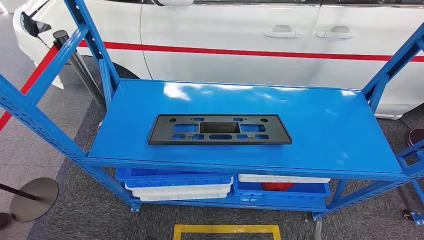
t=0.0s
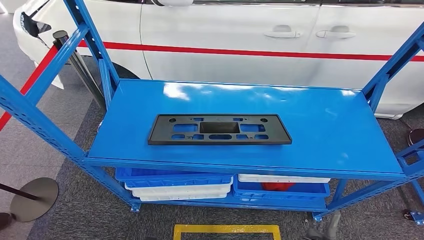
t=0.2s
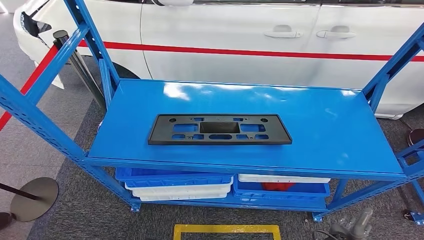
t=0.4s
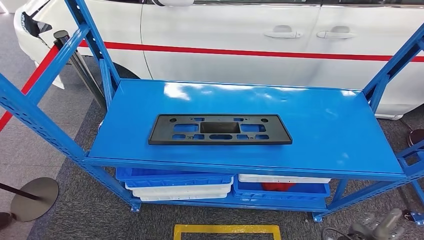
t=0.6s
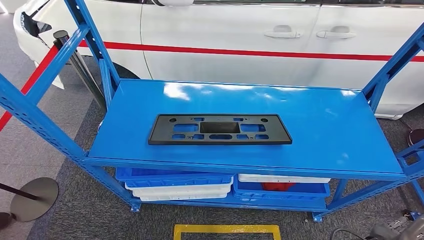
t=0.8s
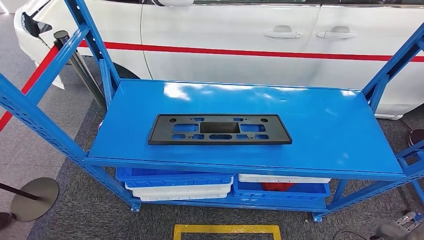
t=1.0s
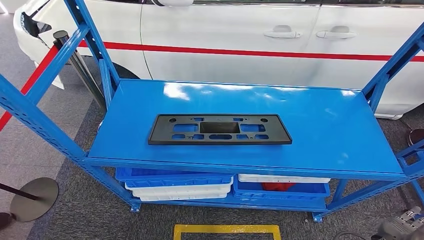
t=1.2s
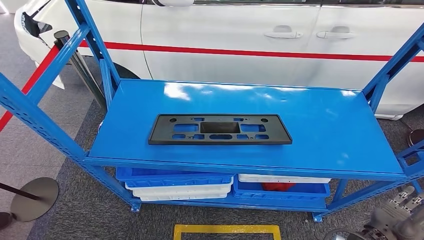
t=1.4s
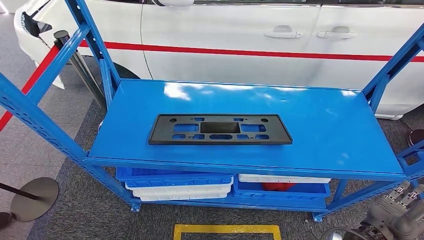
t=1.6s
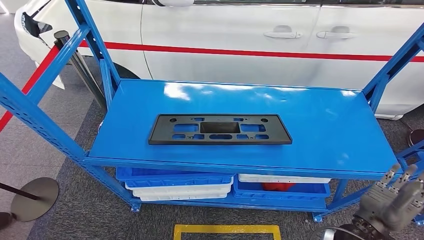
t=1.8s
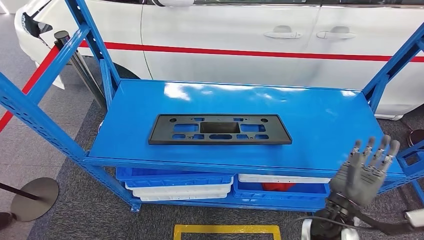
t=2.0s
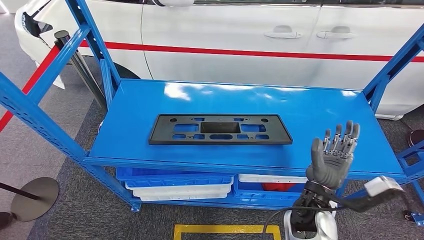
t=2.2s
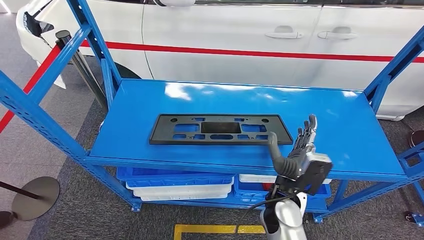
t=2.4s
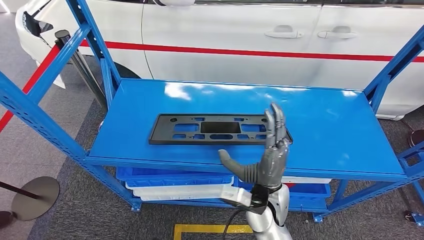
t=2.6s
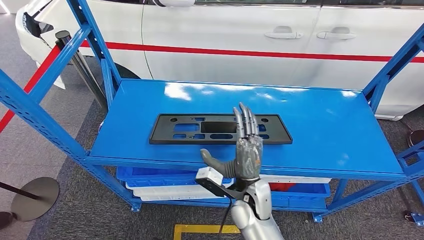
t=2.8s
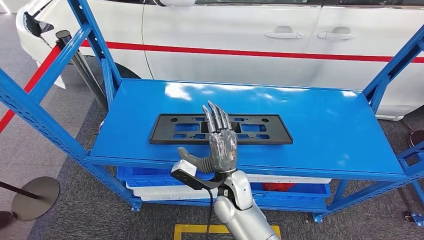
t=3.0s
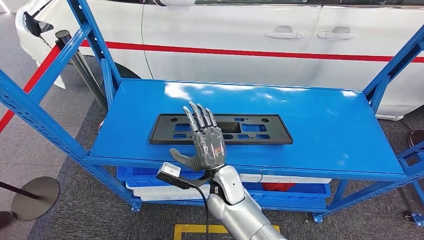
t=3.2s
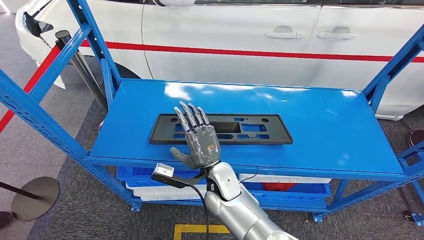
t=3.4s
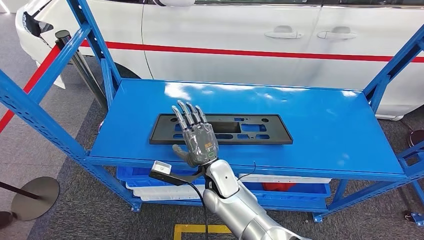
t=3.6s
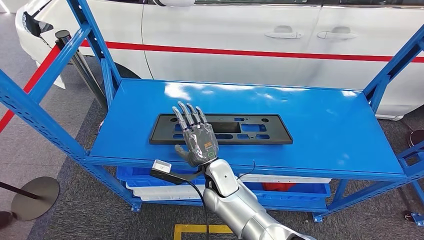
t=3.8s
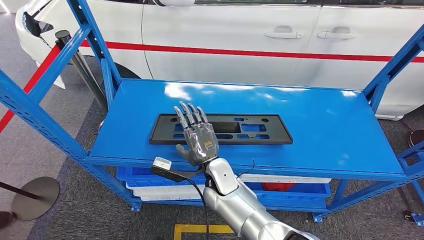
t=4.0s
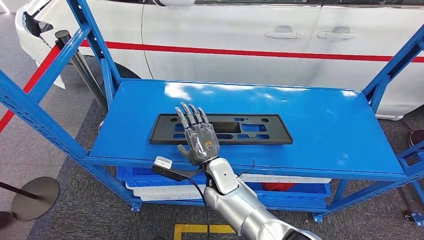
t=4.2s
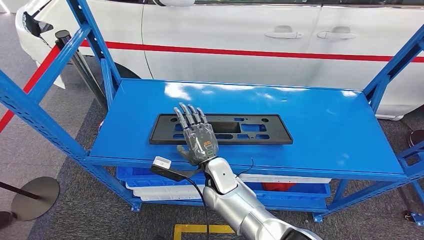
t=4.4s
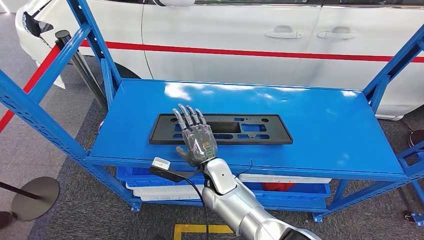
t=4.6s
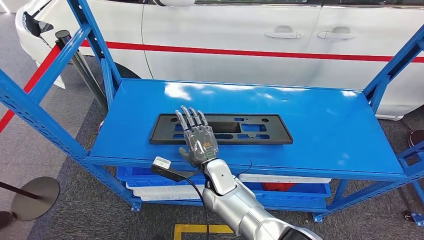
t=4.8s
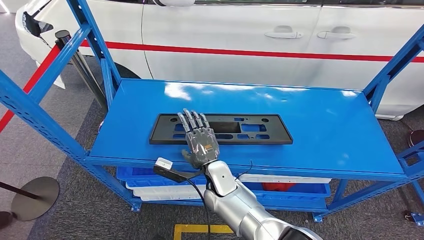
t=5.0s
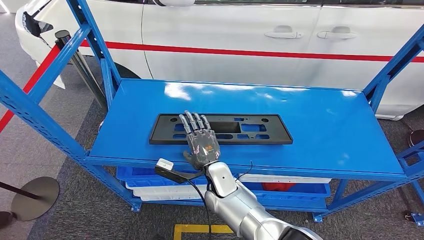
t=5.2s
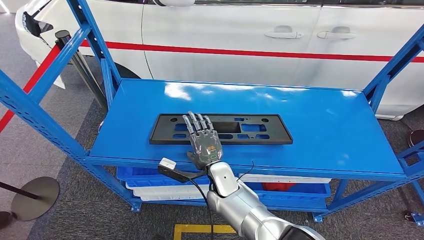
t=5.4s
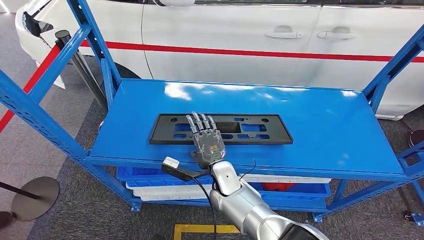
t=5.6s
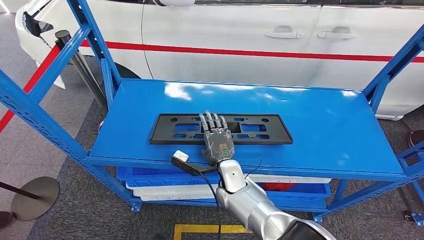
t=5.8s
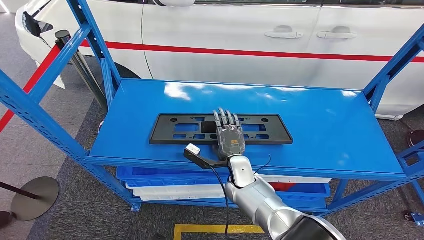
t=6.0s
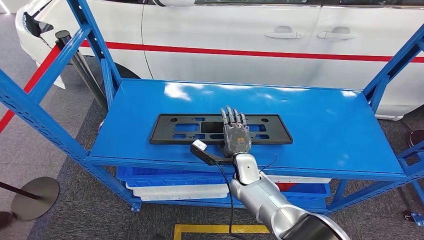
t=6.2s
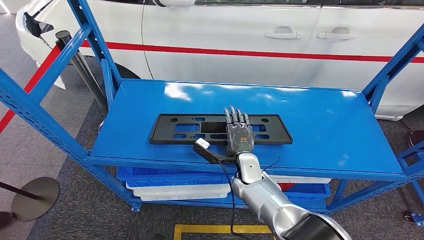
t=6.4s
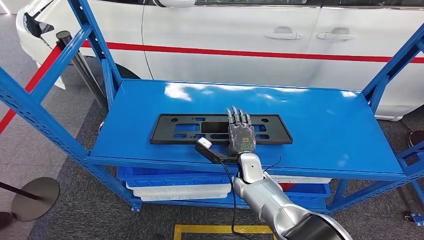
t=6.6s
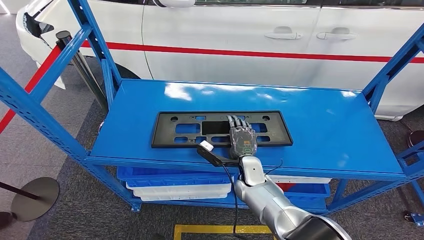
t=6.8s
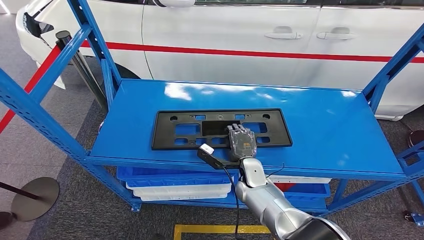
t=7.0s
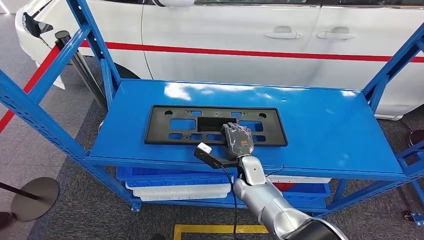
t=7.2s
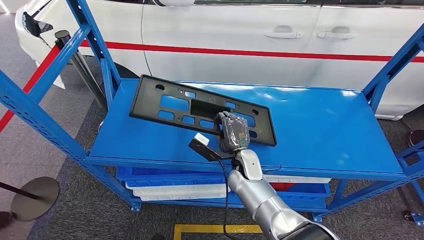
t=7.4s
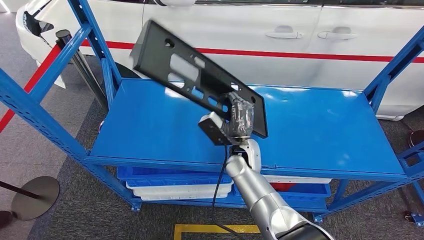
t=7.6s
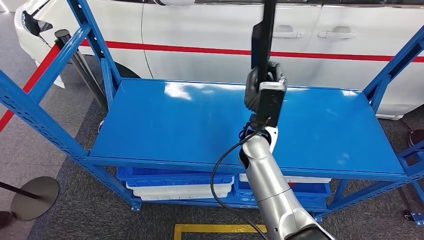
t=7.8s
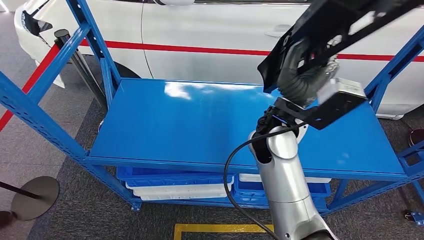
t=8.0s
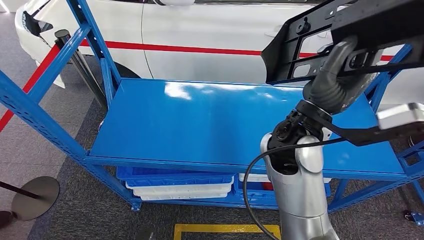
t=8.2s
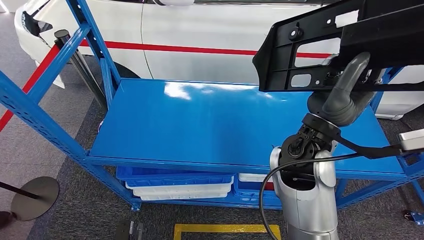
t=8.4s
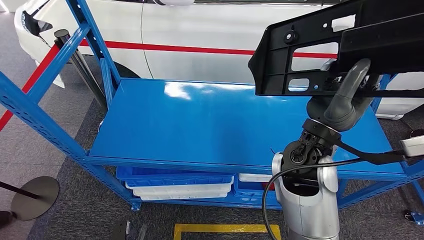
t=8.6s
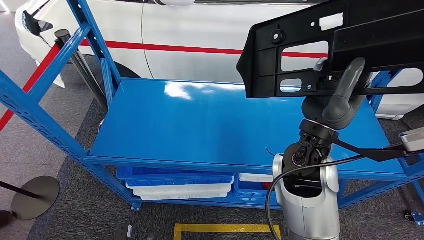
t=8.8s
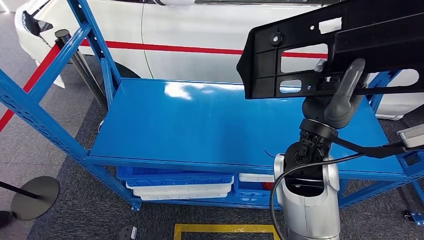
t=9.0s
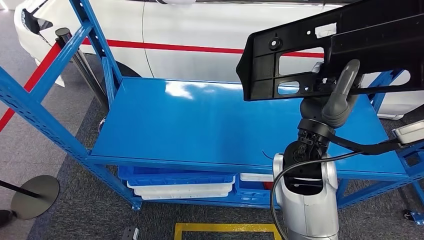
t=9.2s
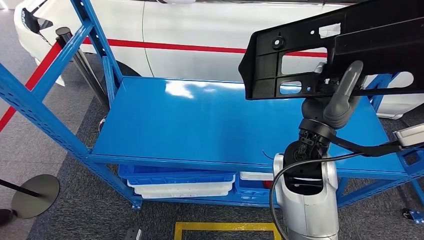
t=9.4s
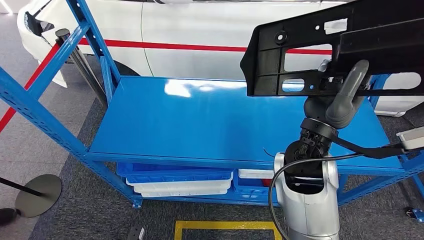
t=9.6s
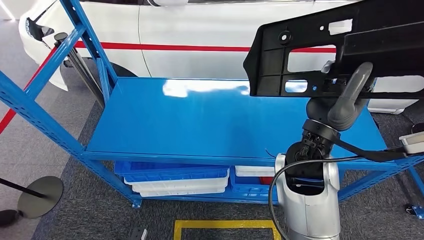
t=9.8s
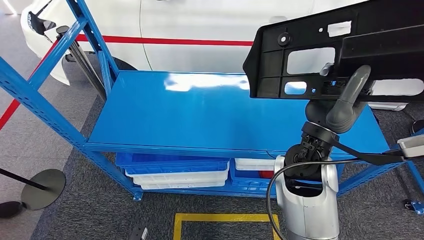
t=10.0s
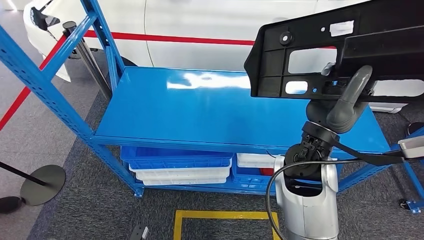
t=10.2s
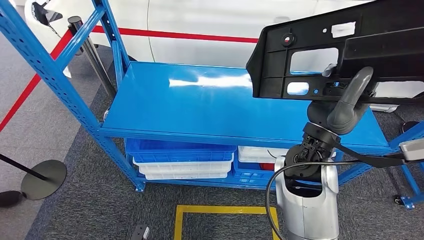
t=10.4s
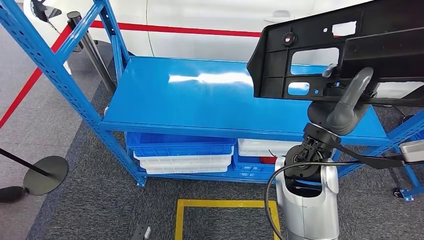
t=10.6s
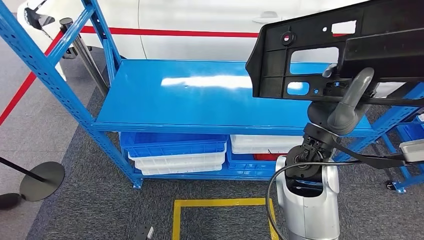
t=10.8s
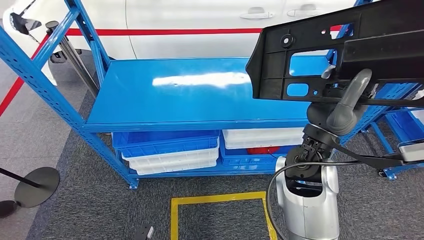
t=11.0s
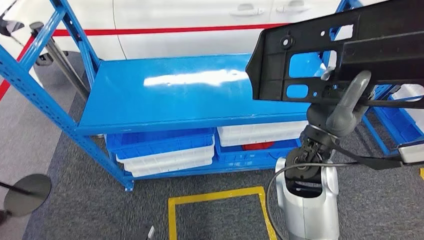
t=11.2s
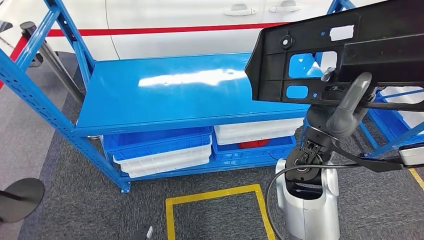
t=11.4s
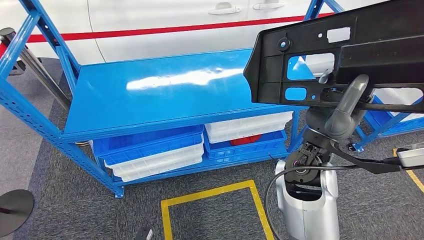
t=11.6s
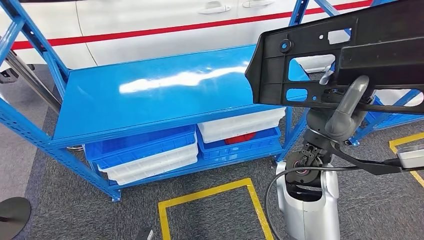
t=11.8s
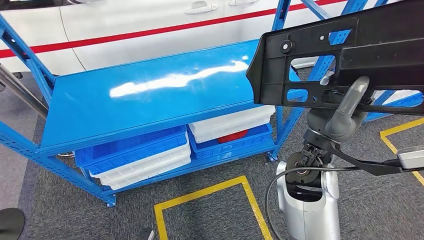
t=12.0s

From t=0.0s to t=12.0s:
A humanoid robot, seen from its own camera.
Step, from t=0.0s to t=7.6s: Pick up the large material from the shelf.
From t=1.6s to t=3.0s: The right hand goes roughly 25 cm to the left and forward.
From t=4.4s to t=6.0s: The right hand goes some 5 cm to the right.
From t=6.0s to t=7.6s: The right hand moves upward, about 5 cm.

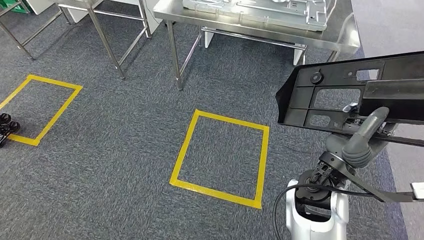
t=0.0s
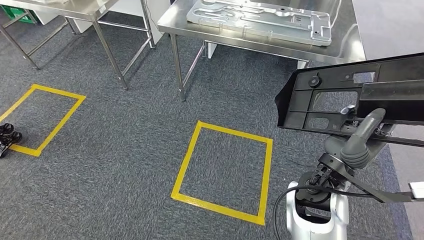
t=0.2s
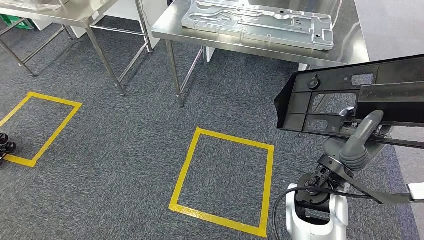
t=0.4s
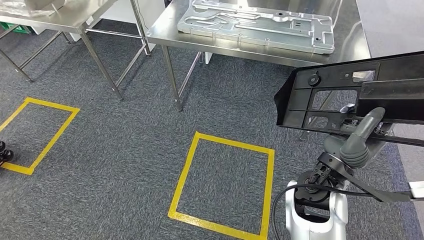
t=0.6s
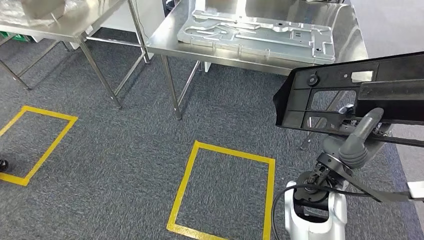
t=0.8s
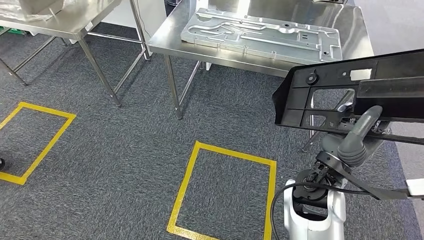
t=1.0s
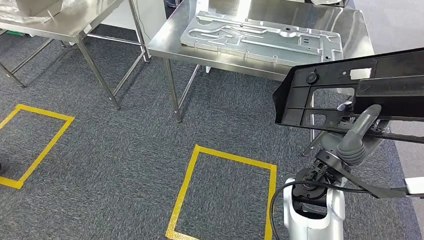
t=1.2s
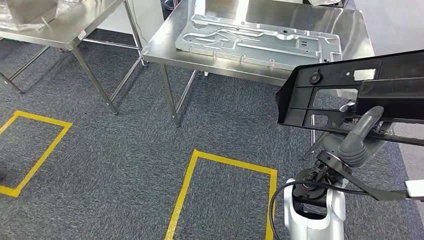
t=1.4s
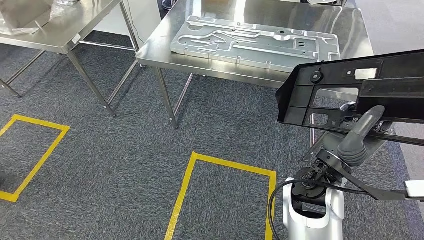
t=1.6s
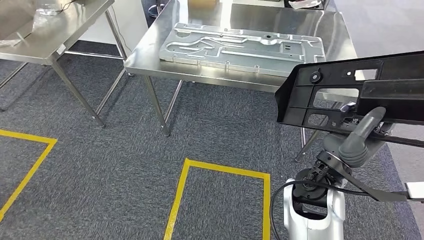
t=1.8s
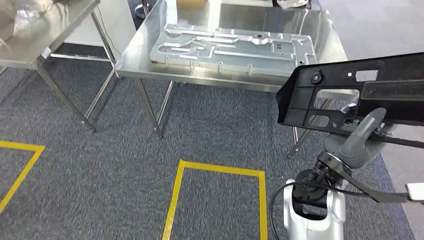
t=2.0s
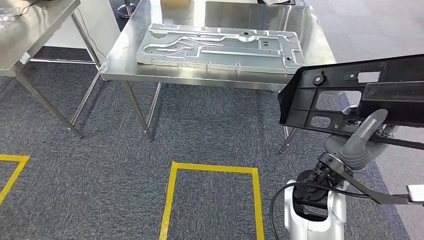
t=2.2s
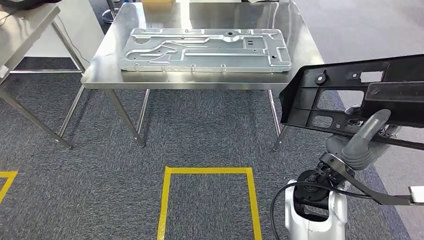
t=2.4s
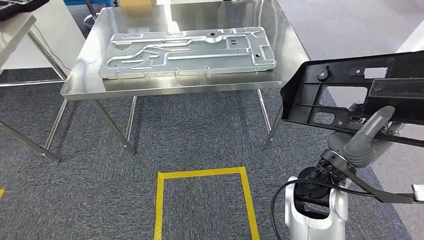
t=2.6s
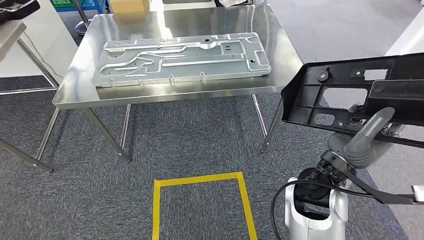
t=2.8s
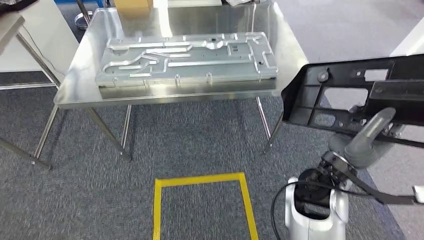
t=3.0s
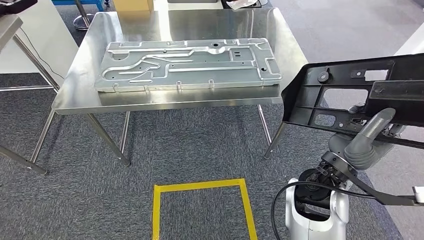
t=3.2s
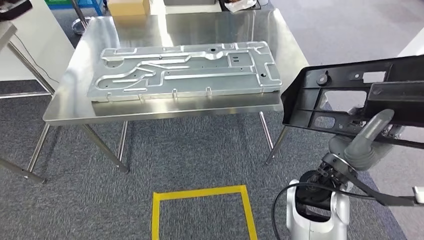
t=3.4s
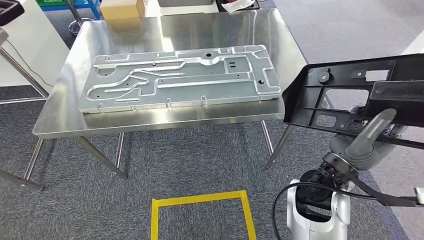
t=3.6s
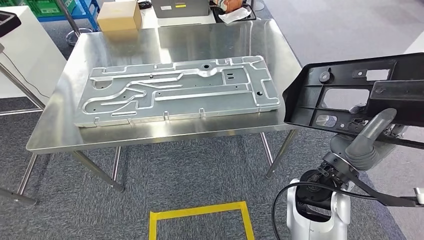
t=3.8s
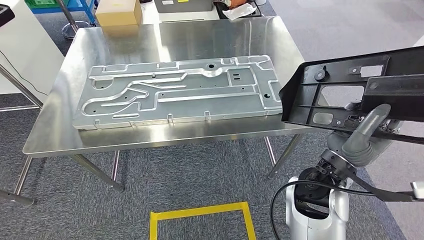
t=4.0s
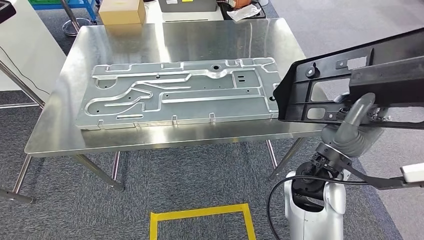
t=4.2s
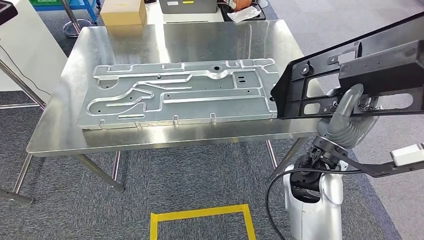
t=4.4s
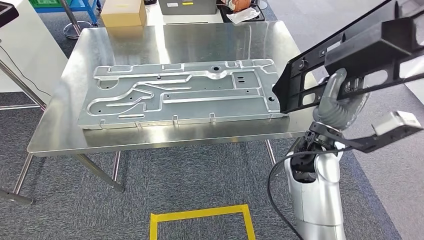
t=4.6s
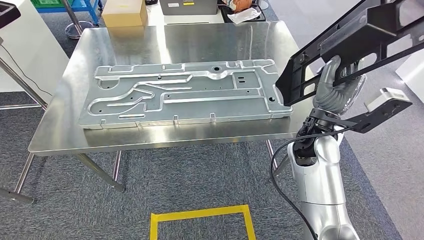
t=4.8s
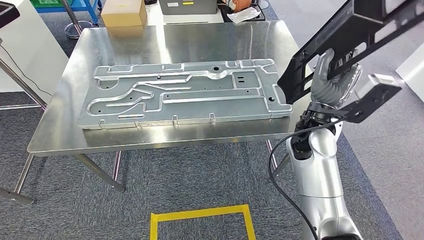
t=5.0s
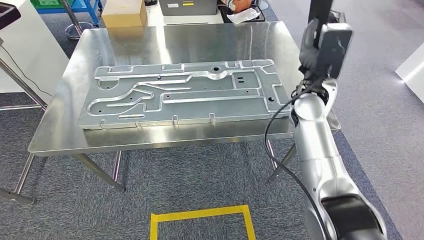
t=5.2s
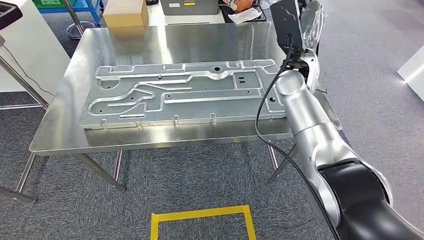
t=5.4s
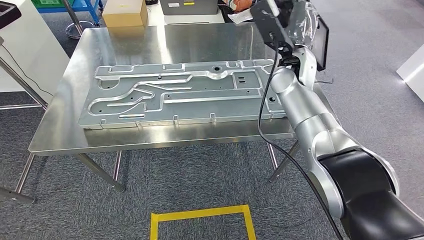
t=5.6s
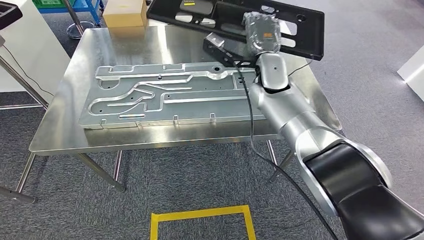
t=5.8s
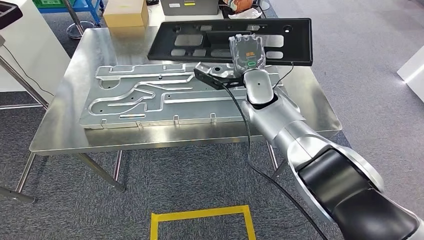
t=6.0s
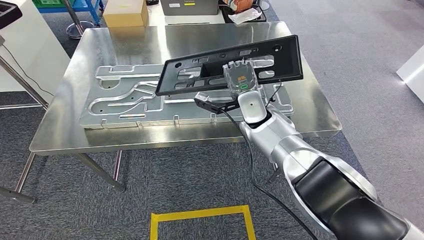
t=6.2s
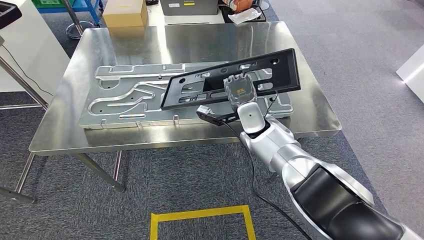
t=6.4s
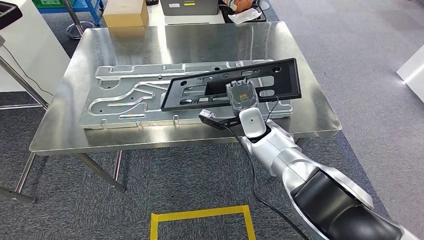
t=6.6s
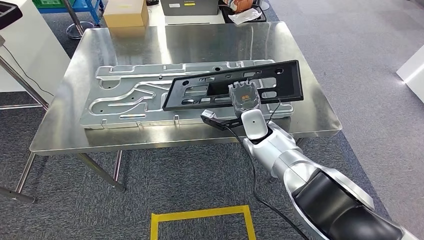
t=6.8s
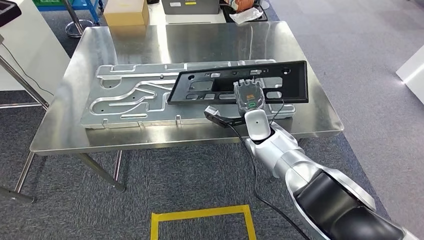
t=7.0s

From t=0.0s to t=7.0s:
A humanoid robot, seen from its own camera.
Step, from t=0.0s to t=4.8s: Move the large material to the front of the workbench.
